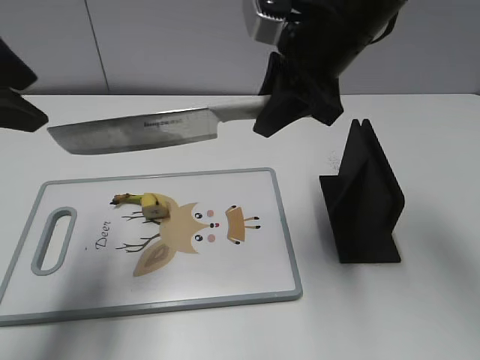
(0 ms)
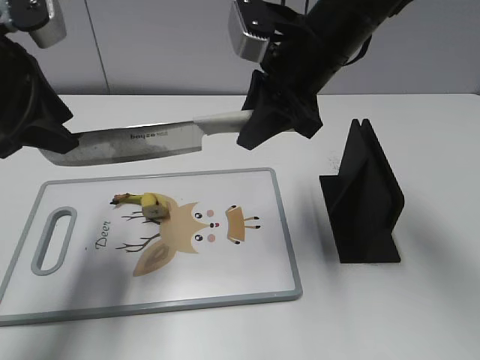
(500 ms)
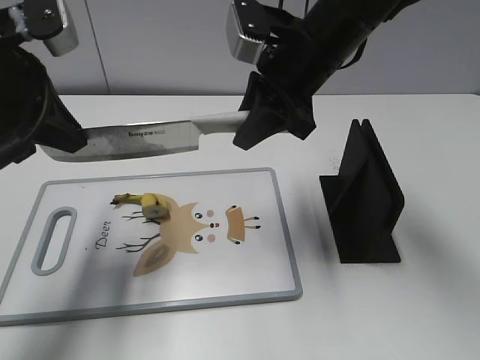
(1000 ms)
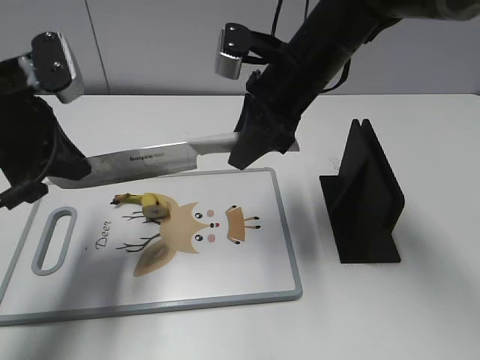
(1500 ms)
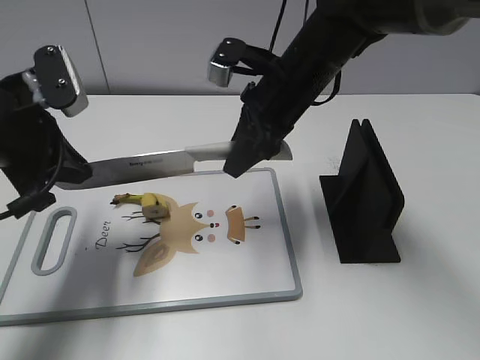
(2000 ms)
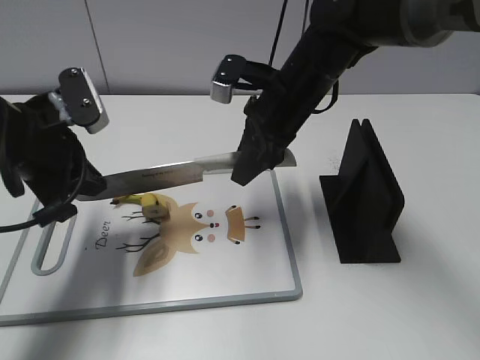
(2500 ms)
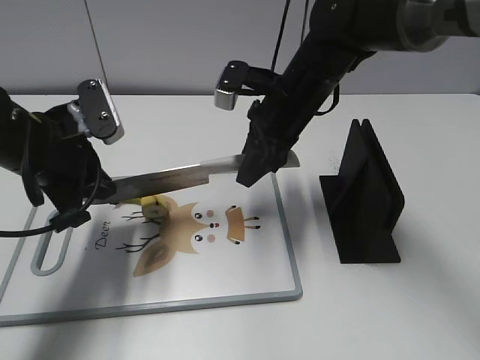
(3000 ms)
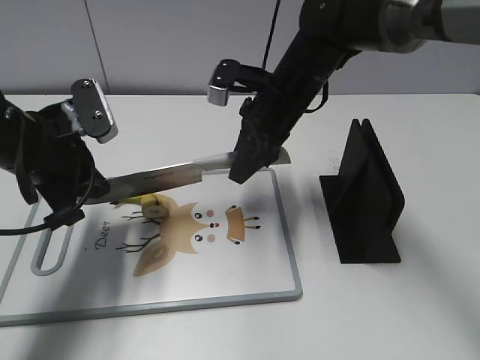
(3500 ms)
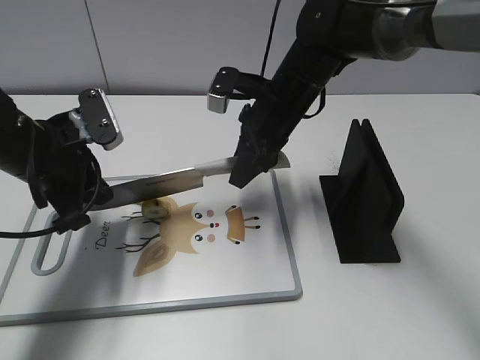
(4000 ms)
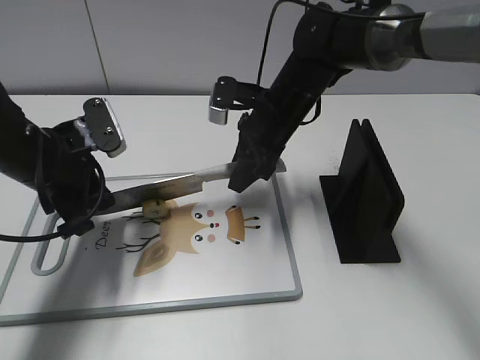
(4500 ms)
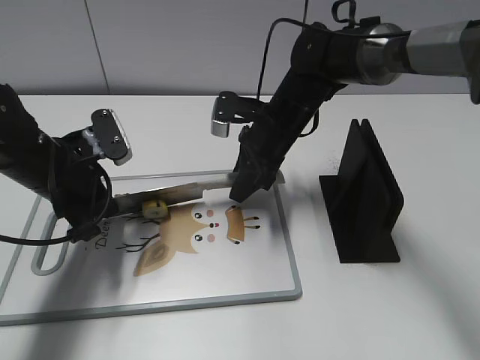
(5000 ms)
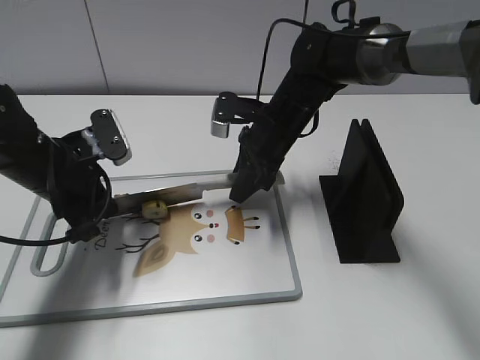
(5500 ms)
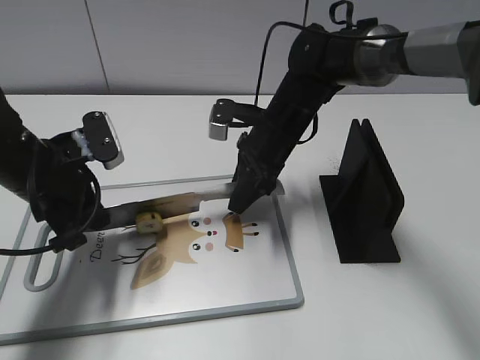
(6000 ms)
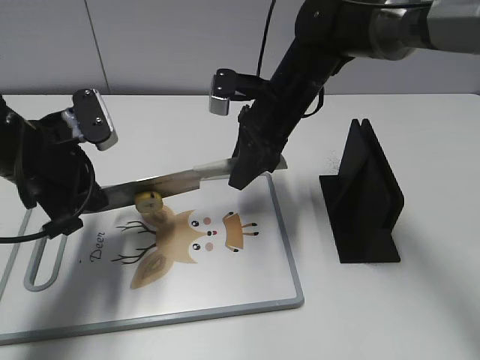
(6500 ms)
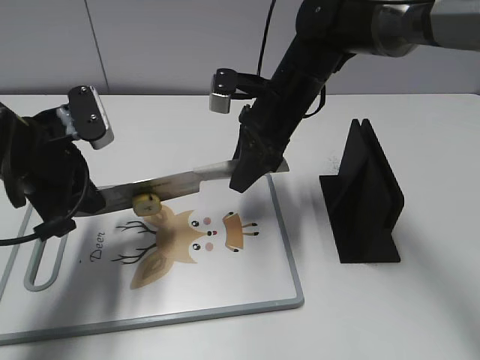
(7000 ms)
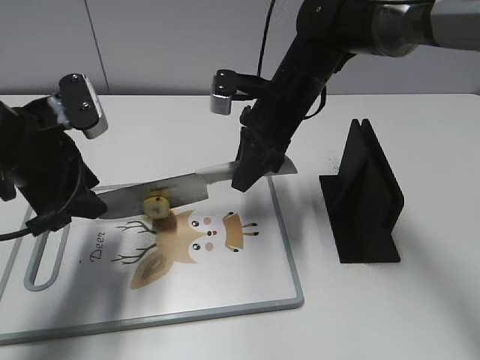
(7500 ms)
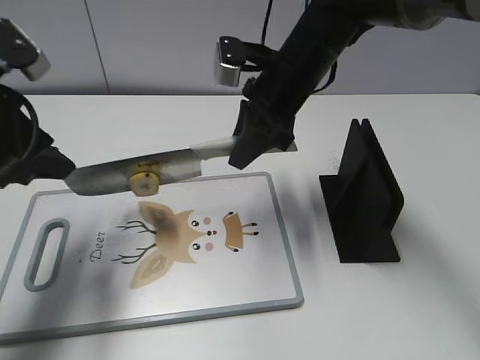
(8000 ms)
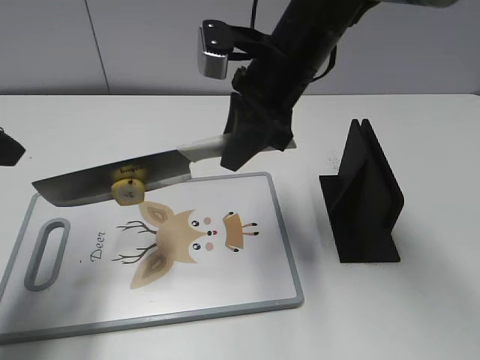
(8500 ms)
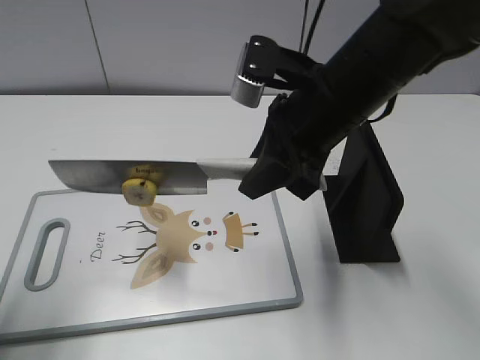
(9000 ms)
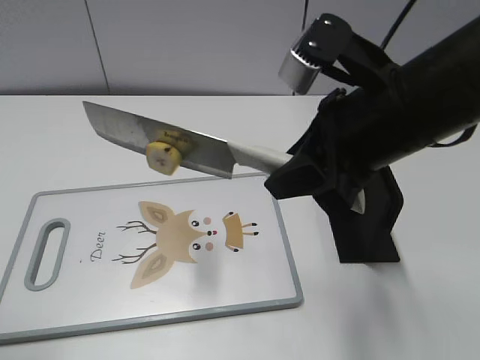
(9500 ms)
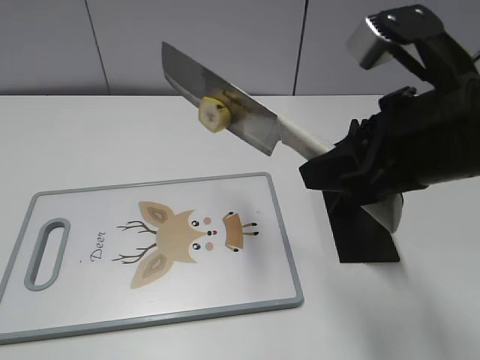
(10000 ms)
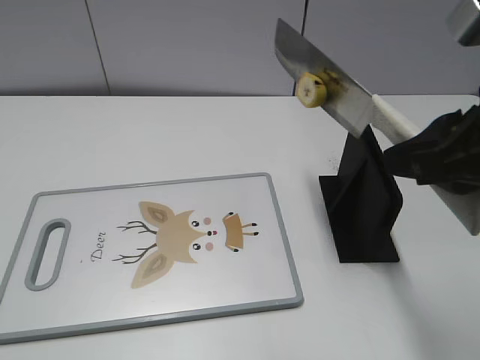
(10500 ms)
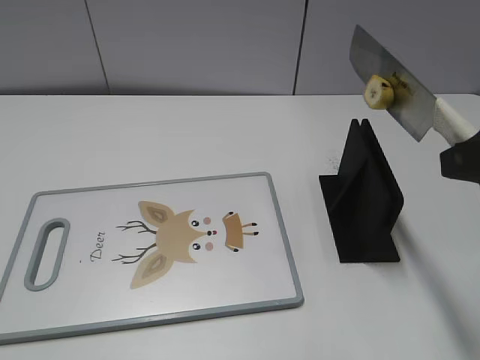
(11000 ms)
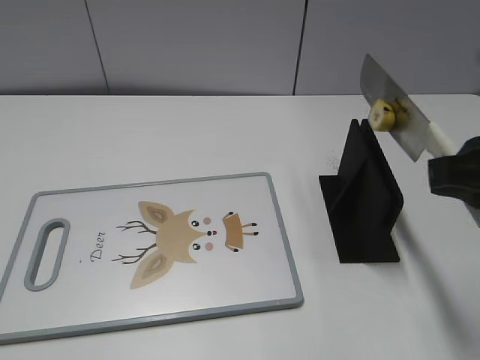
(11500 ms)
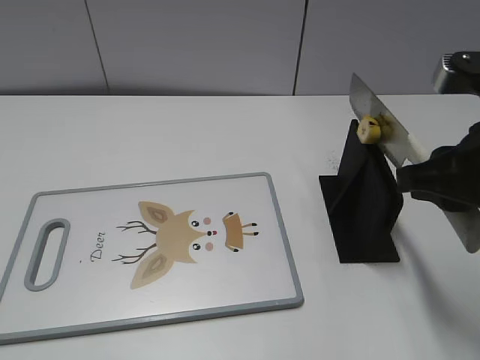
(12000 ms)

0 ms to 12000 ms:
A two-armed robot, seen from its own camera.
Task of the whole recording: cut banana.
Step, 0 ms to 4000 ms: Lift the knife with your right hand.
Step, 4500 ms to 10500 ms: Cut the banana with your right hand.
0 ms to 2000 ms: The grippers both shift downward by roughly 10 cm. The left gripper closes its fingers.
2000 ms to 4000 ms: The left gripper heads downward, covering about 5 cm, while the right gripper moves approximately 5 cm.
6000 ms to 8000 ms: The grippers both shift upward by roughly 10 cm. The left gripper opens.
8000 ms to 10000 ms: The right gripper heads backward and to the right, covering about 20 cm; the left gripper heads backward, covering approximately 25 cm.
10000 ms to 12000 ms: The right gripper ends up approximately 5 cm from where it was; the left gripper shifts by approximately 5 cm.

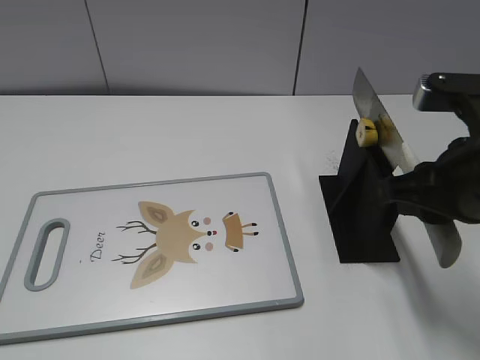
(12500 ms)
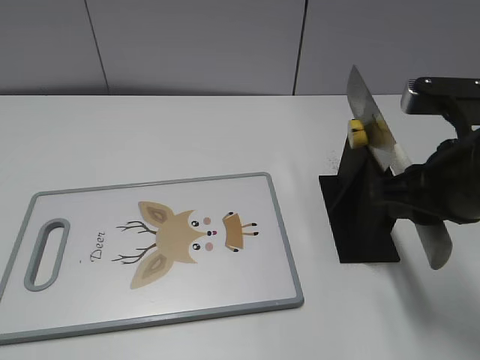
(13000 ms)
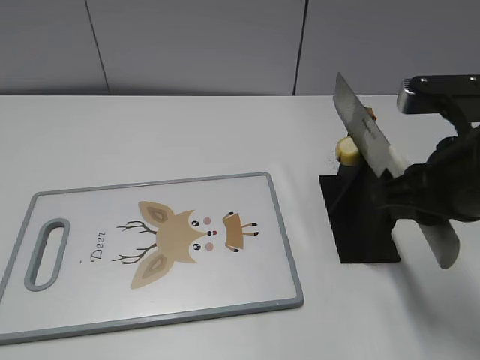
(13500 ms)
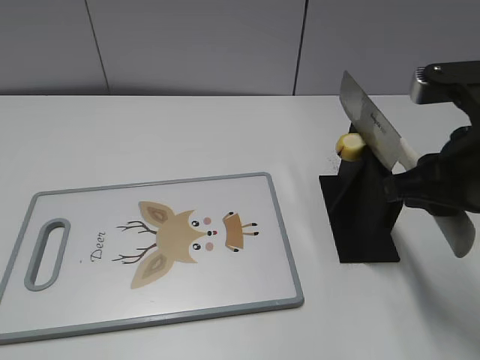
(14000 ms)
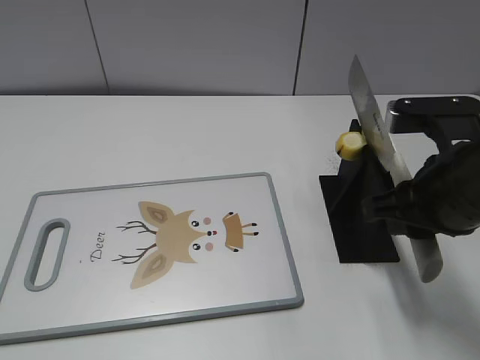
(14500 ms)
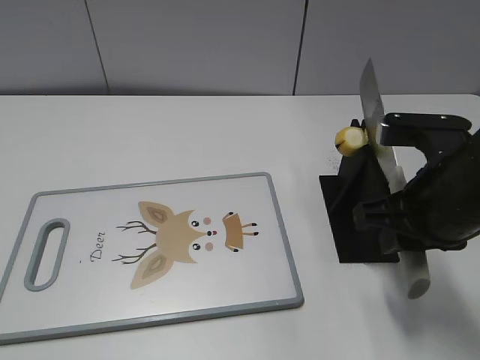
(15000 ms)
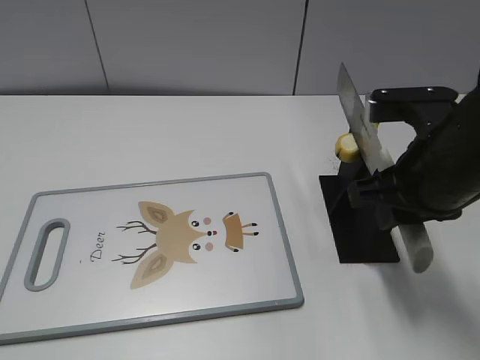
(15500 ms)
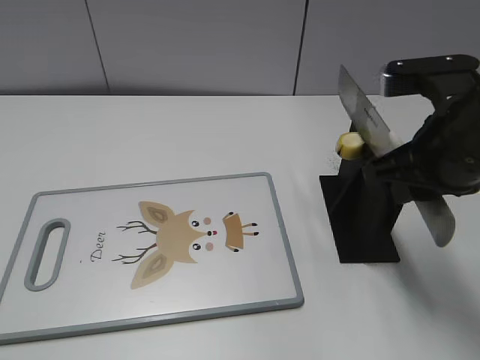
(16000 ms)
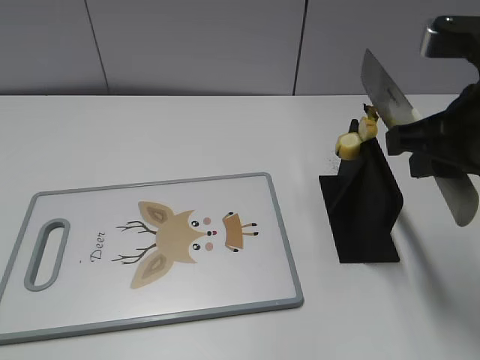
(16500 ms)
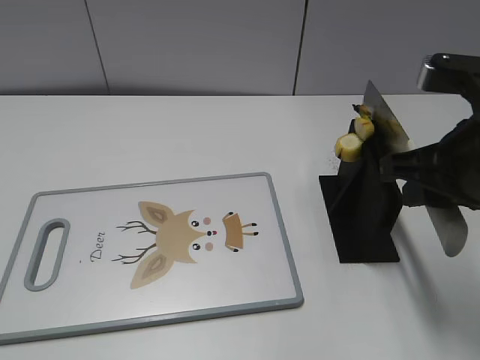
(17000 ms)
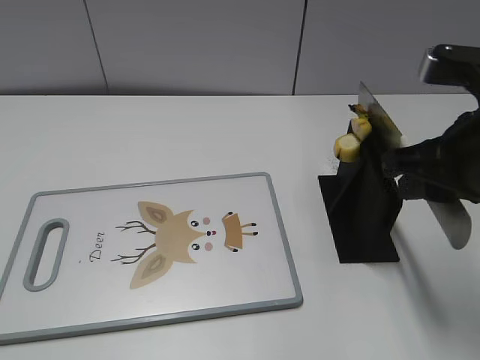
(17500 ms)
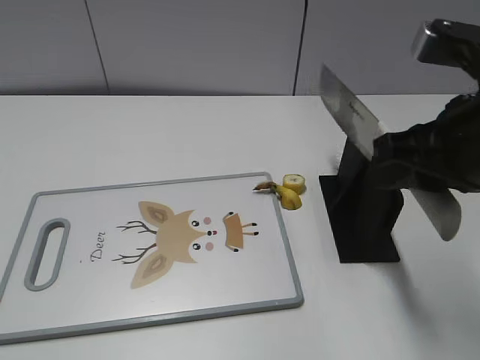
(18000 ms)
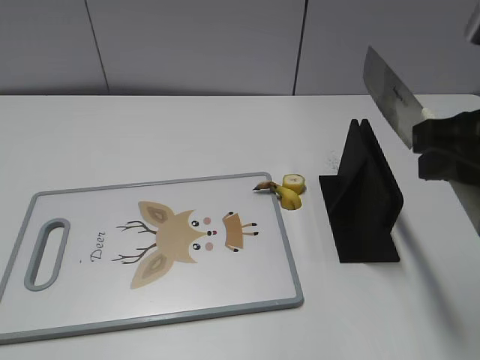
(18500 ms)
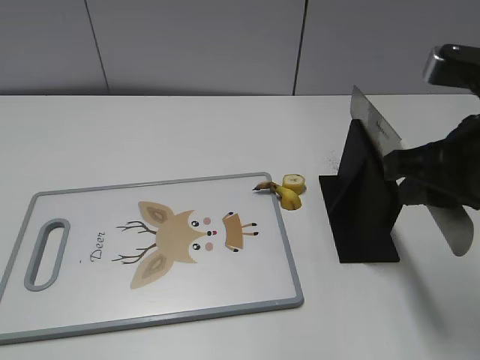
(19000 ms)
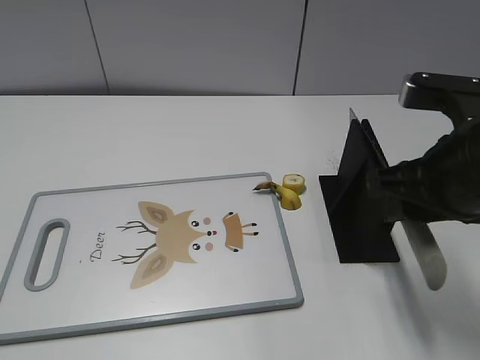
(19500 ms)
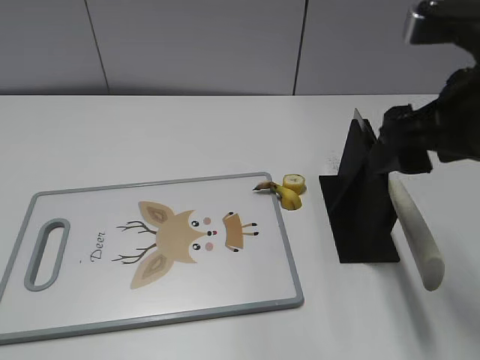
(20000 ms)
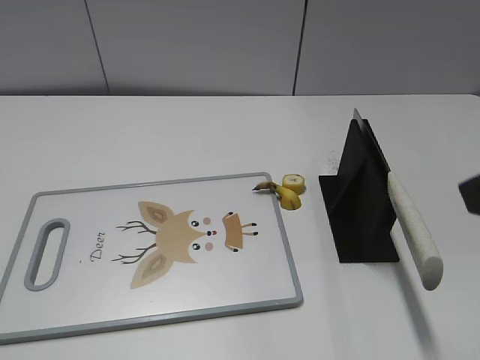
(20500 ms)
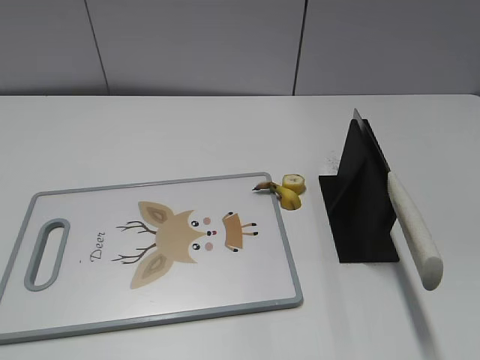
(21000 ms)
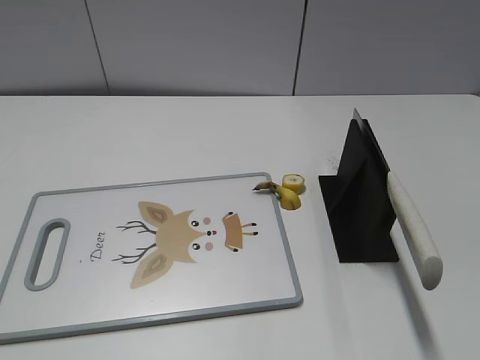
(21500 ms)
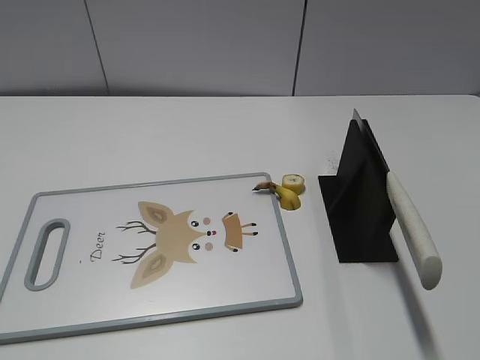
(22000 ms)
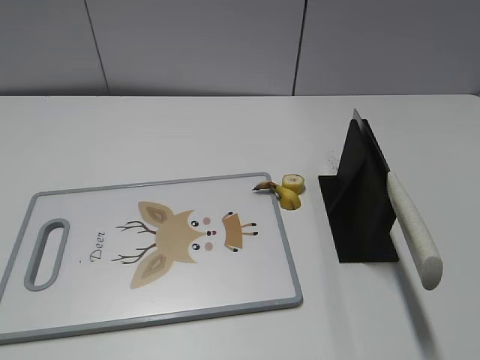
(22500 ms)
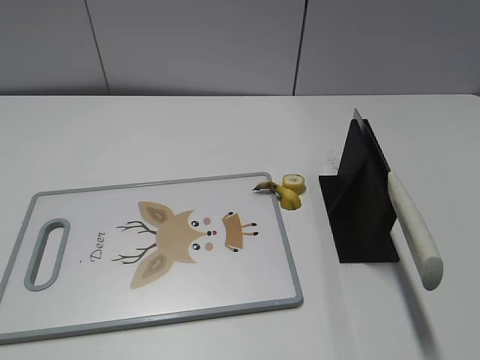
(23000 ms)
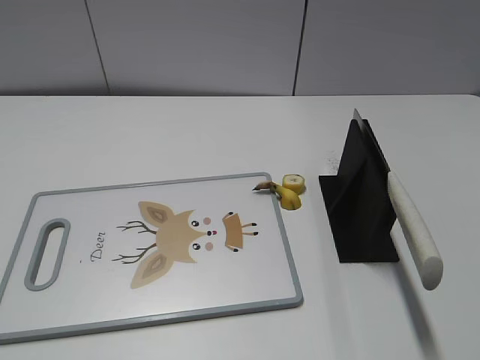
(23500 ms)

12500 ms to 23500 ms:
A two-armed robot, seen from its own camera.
Task of the whole recording: cut banana.
Step, 12500 ms to 23500 ms: Place the knife on the storage rack with your right hand.
12500 ms to 18000 ms: The grippers move only a little.
18000 ms to 20000 ms: The right gripper opens up.
20000 ms to 21500 ms: The right gripper moves backward and to the right, roughly 25 cm.

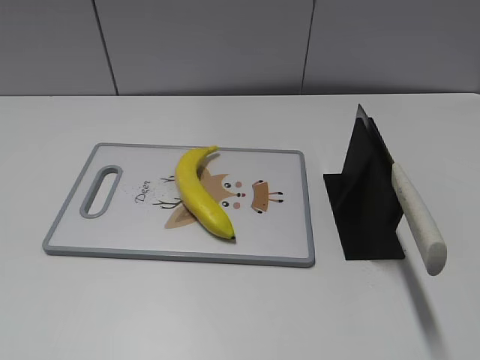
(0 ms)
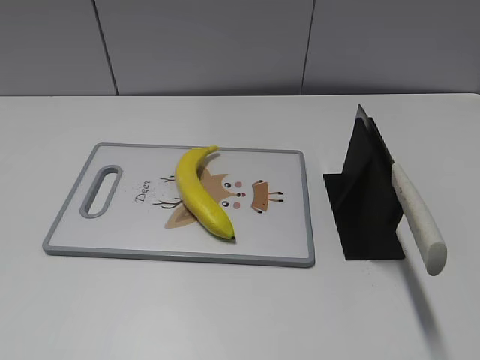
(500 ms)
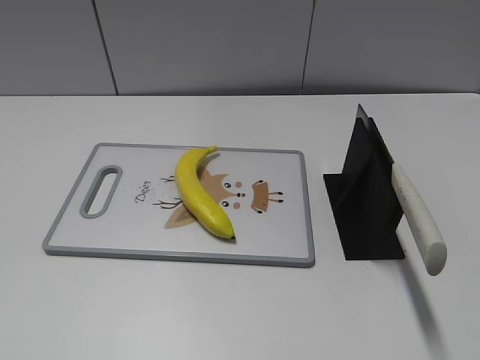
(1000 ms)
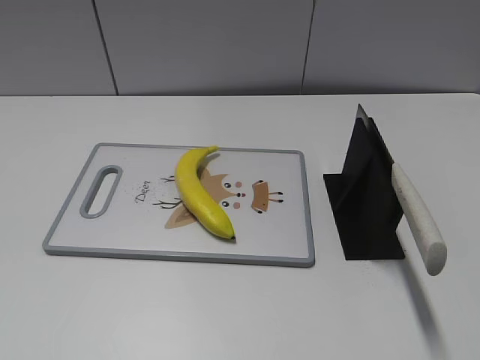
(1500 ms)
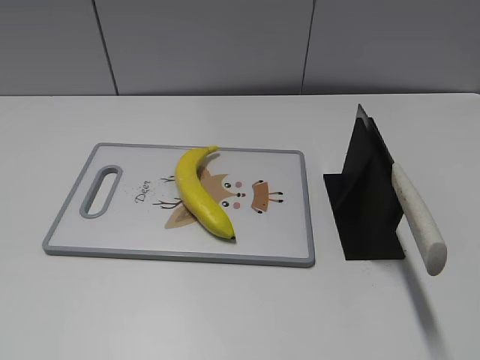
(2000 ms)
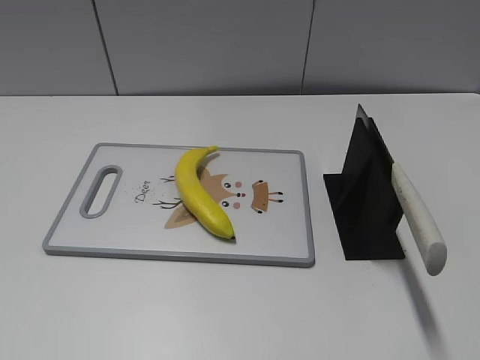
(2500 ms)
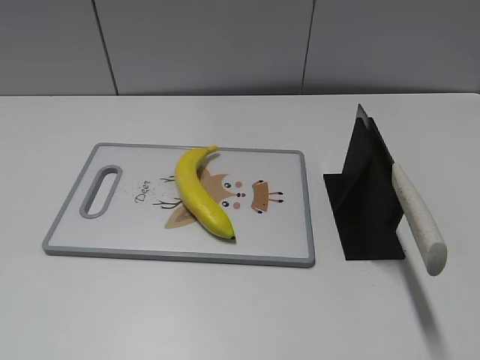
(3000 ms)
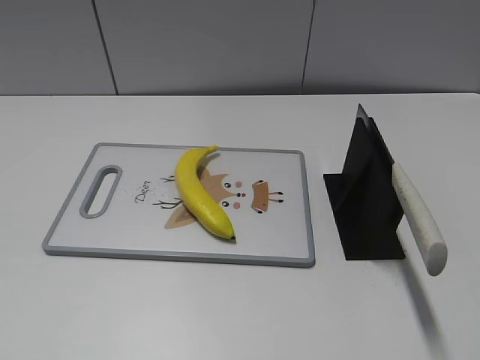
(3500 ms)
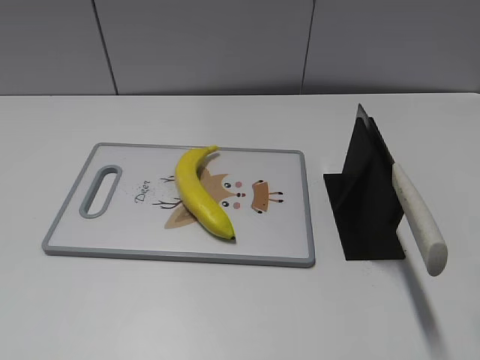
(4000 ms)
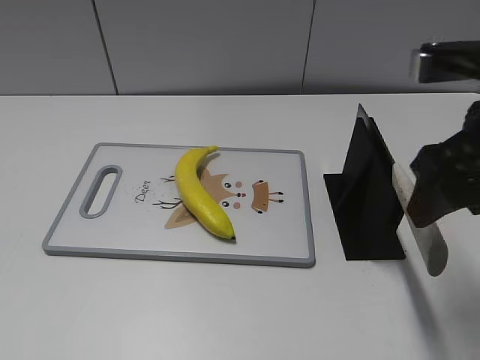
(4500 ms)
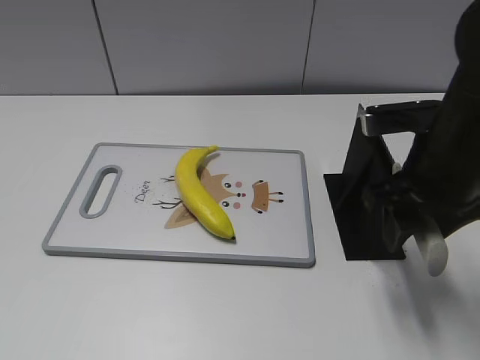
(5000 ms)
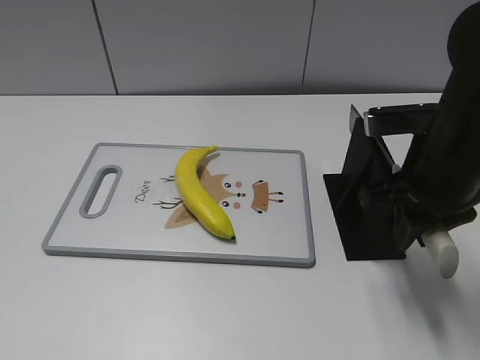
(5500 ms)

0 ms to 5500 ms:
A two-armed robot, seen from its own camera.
Task of the whole recording: cut plastic banana.
3500 ms to 5500 ms: The right gripper is displaced forward, downward and to the left by roughly 20 cm, and closes.
